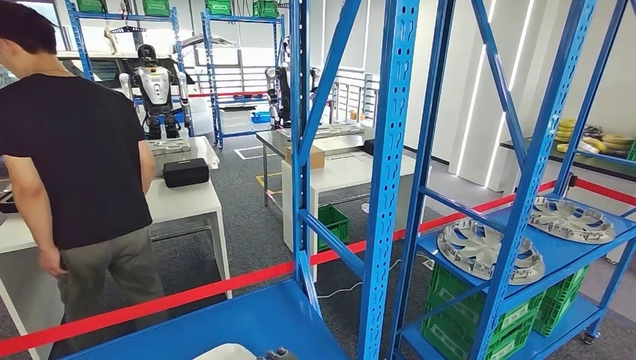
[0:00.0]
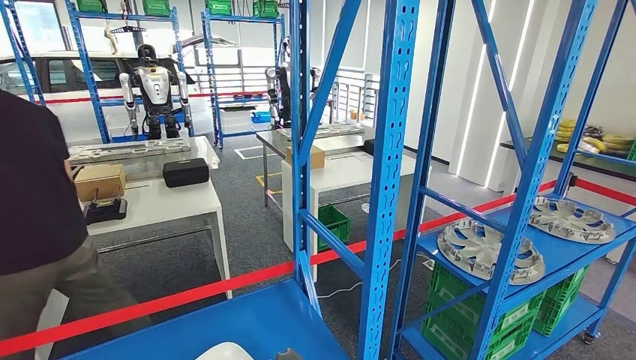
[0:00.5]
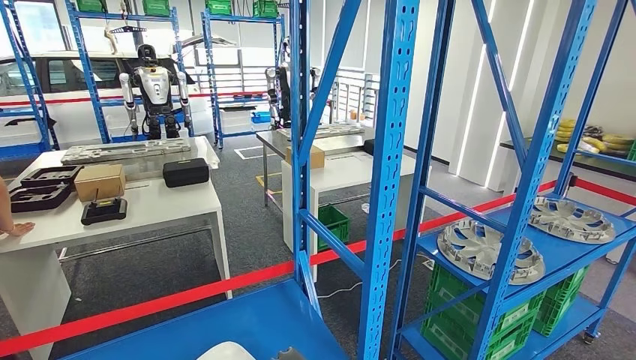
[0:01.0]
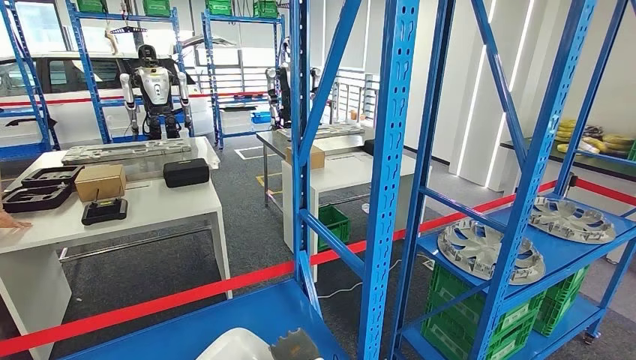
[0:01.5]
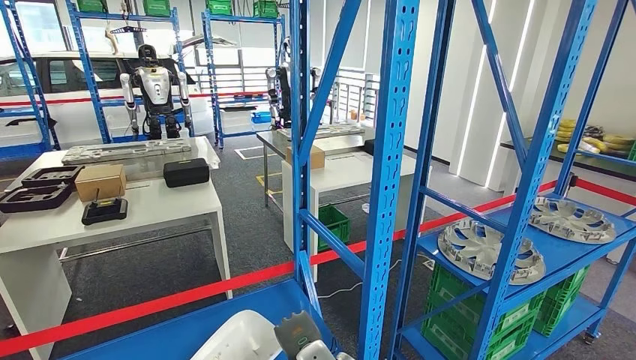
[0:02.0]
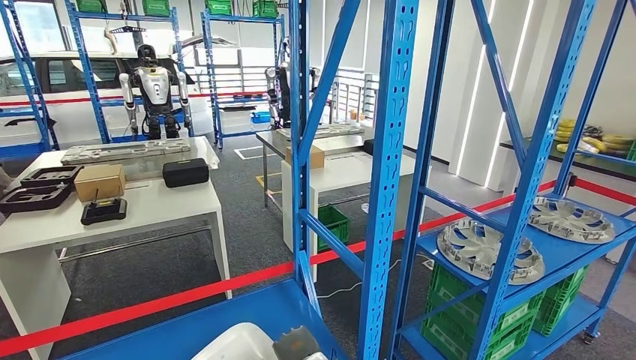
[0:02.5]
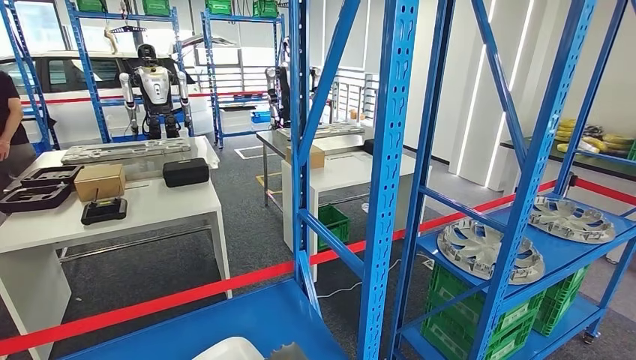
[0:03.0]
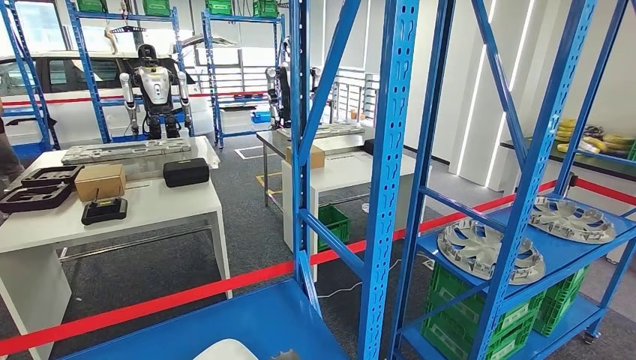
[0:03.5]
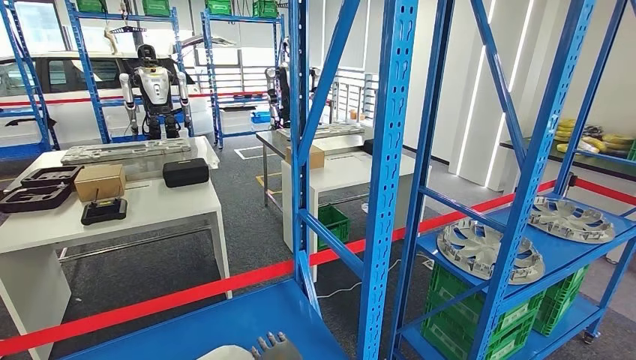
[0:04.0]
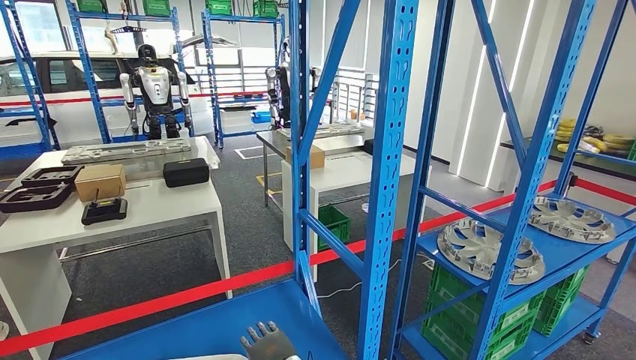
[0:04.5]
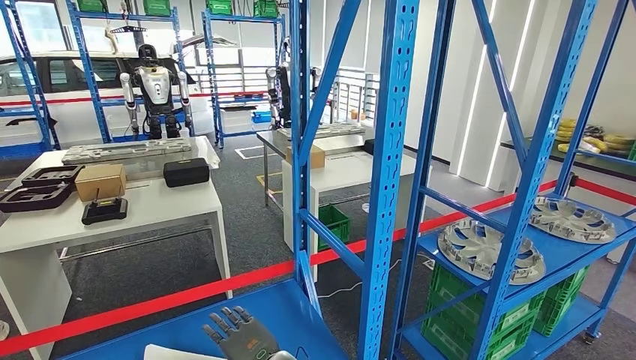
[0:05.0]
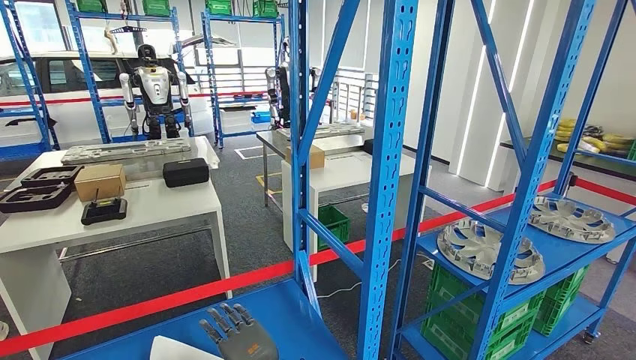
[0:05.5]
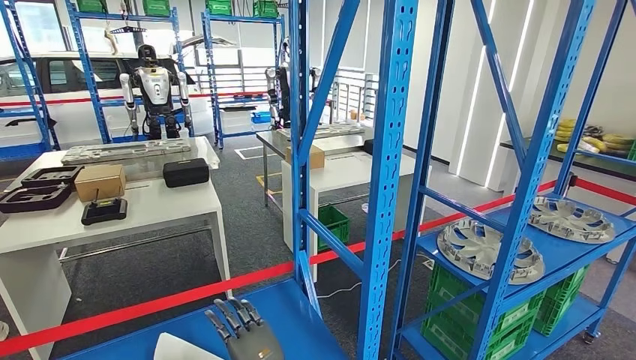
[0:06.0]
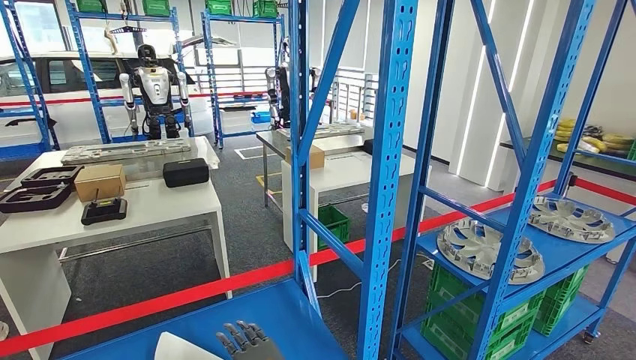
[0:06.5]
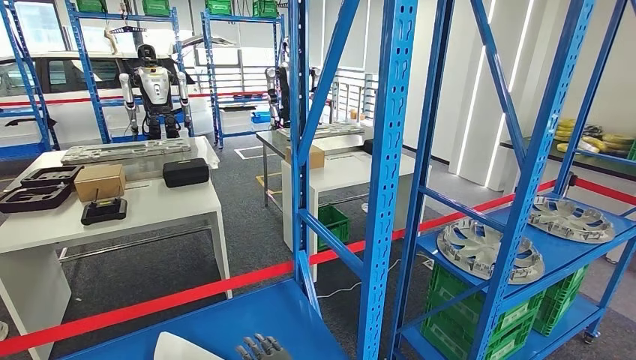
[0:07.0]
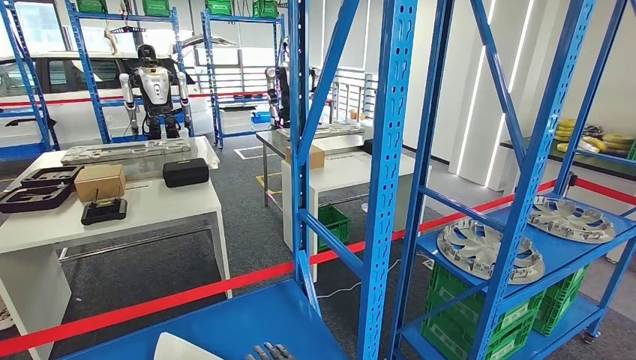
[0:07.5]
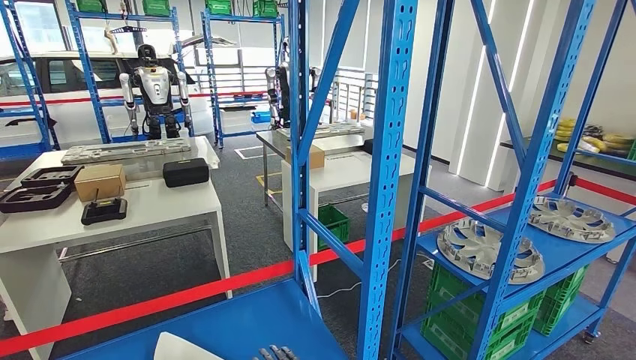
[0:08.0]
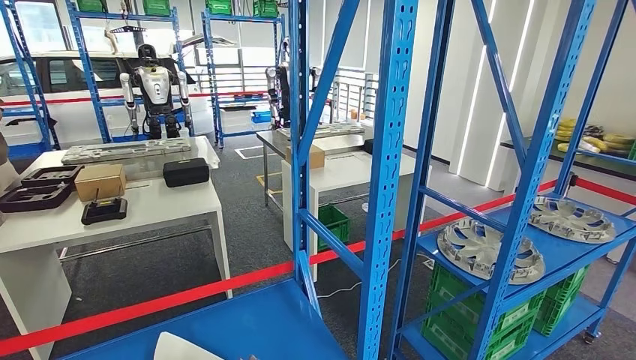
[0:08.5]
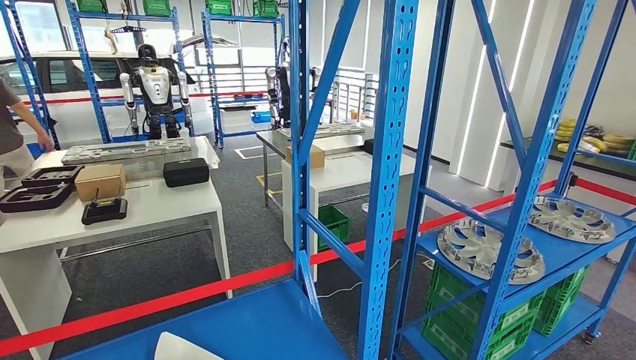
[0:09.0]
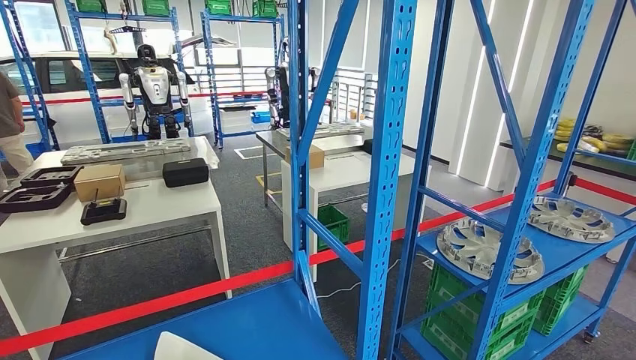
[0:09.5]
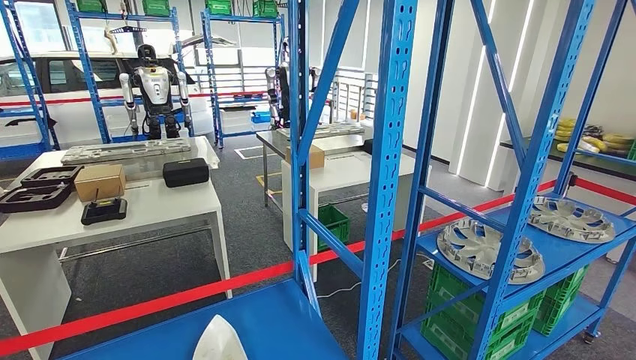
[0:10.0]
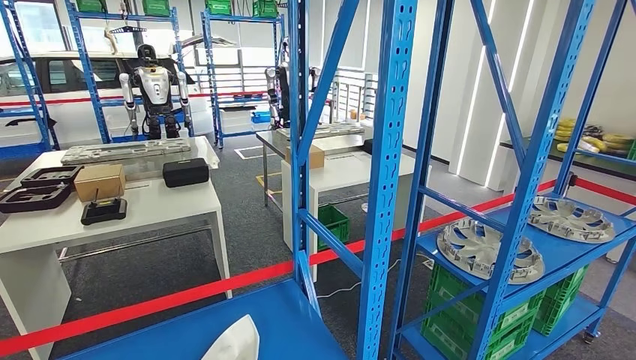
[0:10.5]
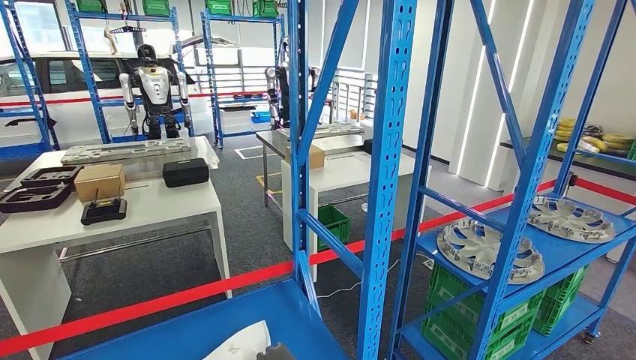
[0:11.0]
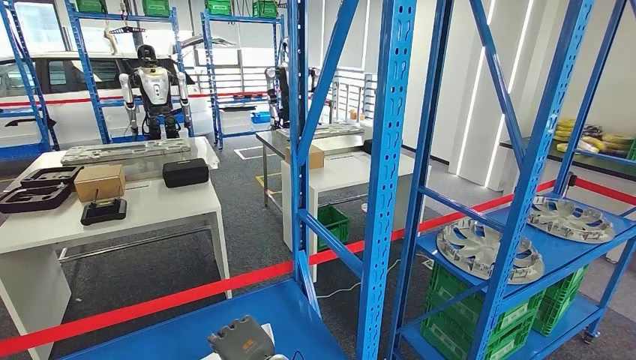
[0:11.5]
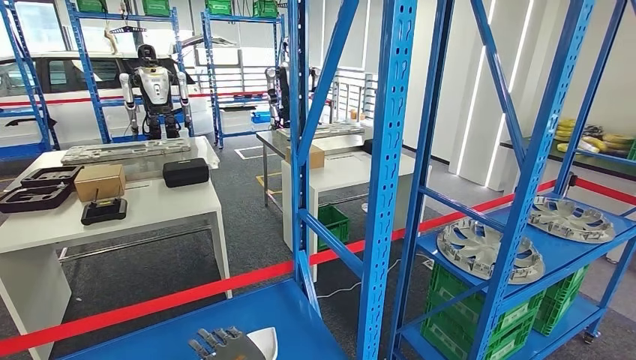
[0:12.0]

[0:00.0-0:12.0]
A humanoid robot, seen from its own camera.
0:00.0 to 0:02.0: The right hand shifts by some 5 cm.
0:02.0 to 0:04.0: The right hand moves some 5 cm.
0:10.0 to 0:12.0: The right hand moves to the left and upward, some 10 cm.

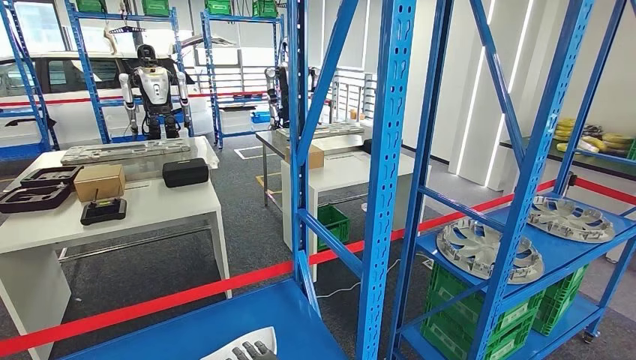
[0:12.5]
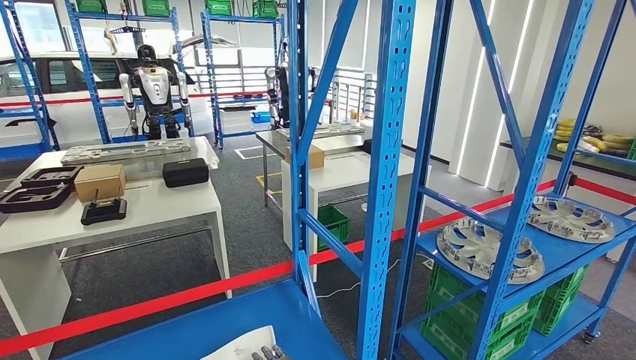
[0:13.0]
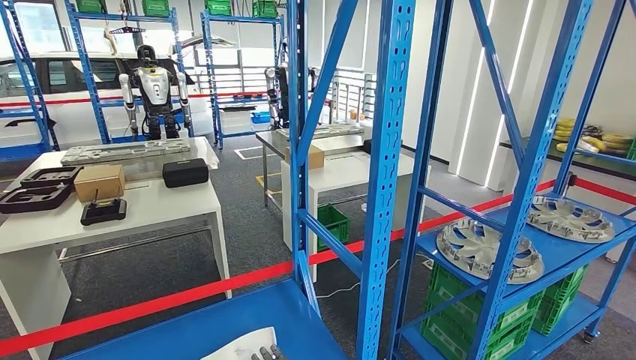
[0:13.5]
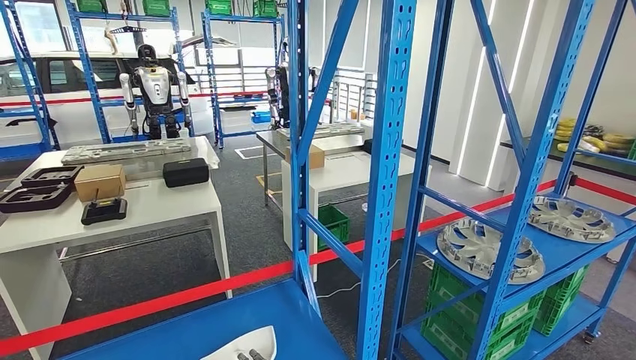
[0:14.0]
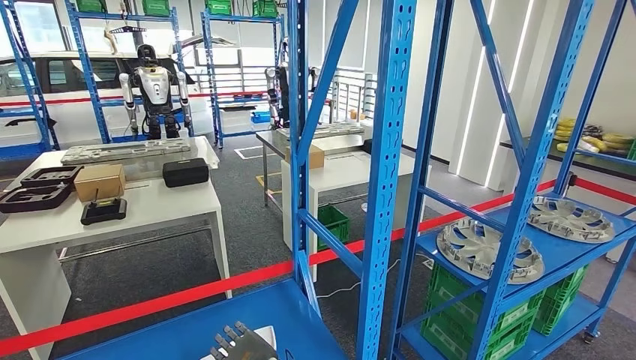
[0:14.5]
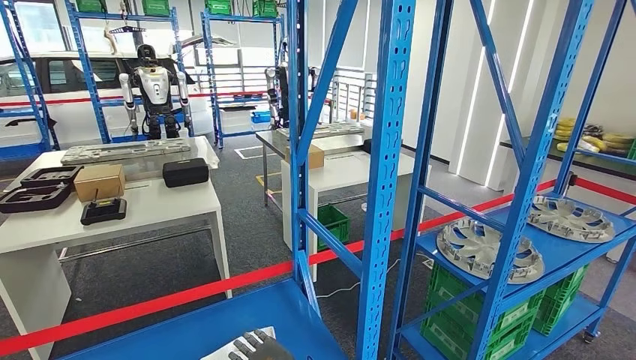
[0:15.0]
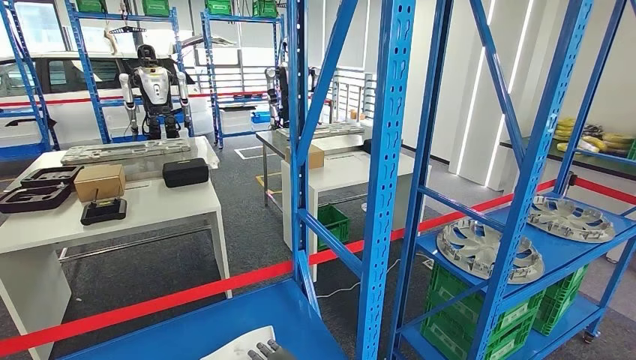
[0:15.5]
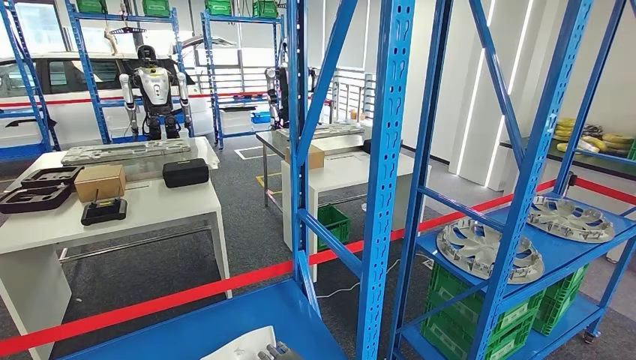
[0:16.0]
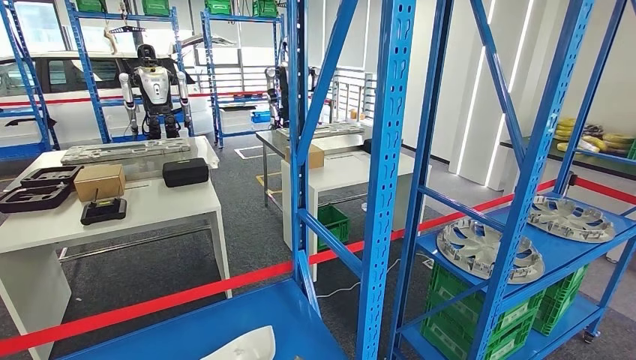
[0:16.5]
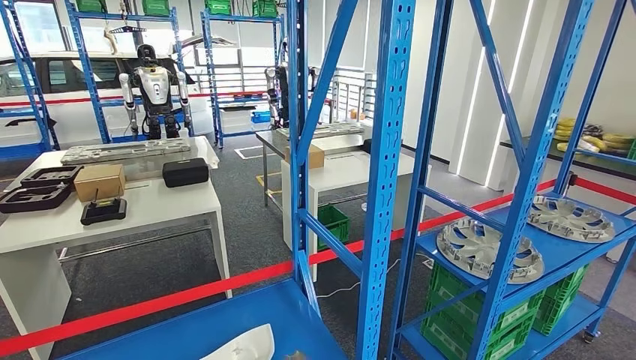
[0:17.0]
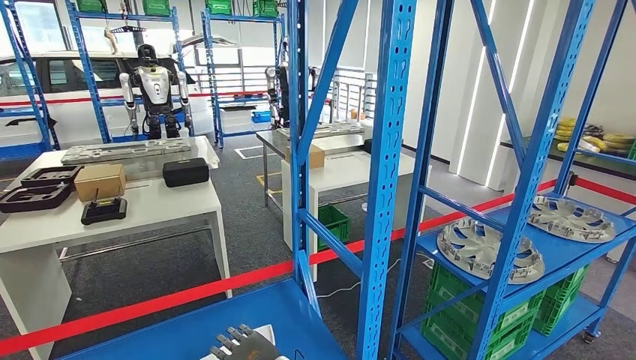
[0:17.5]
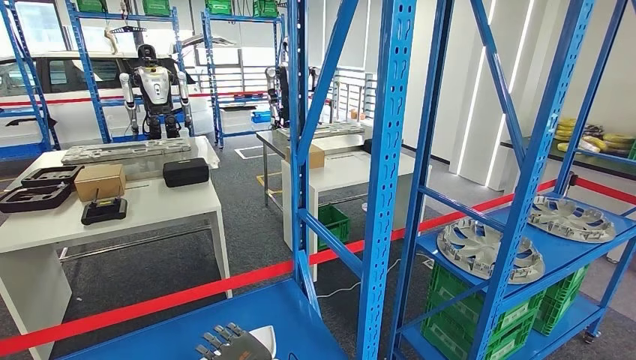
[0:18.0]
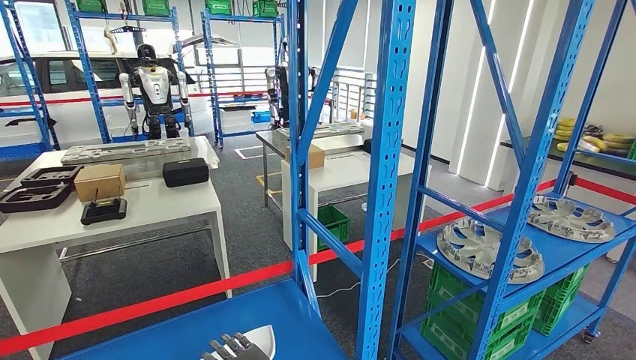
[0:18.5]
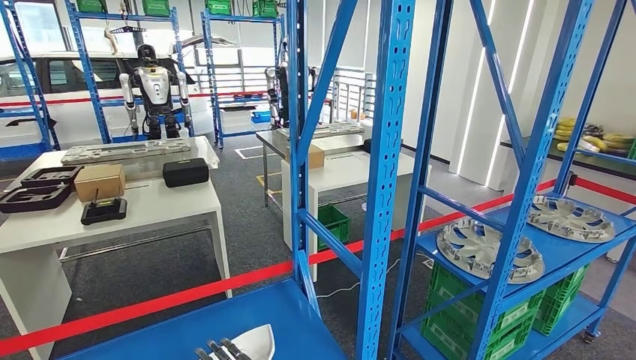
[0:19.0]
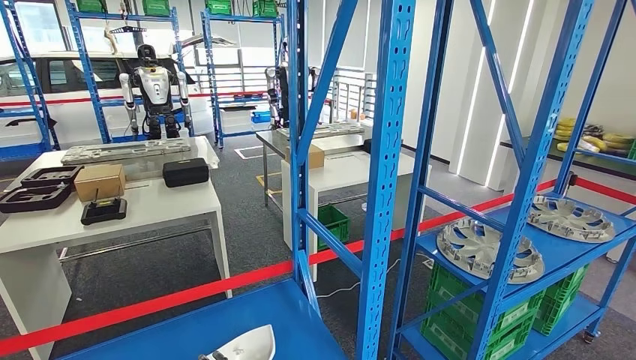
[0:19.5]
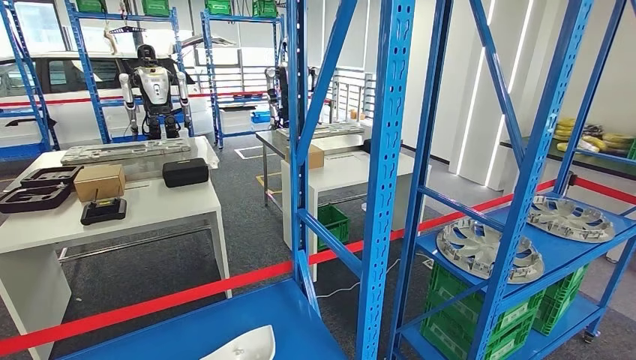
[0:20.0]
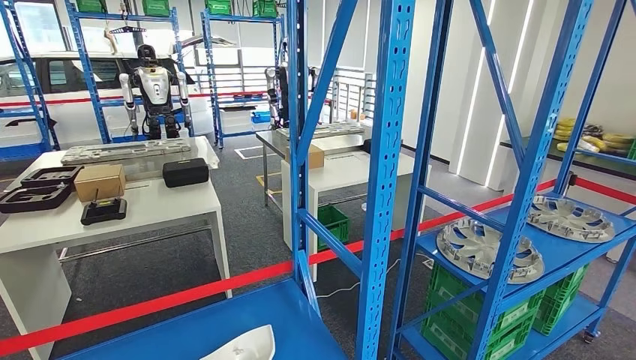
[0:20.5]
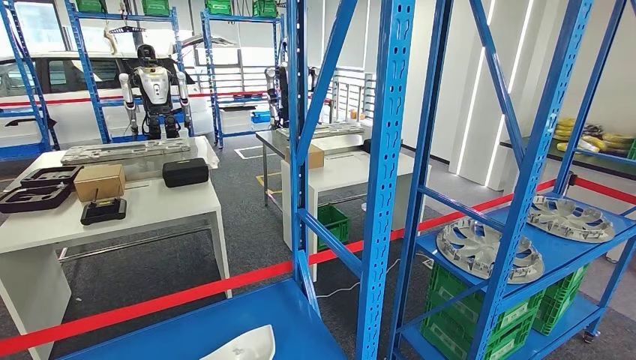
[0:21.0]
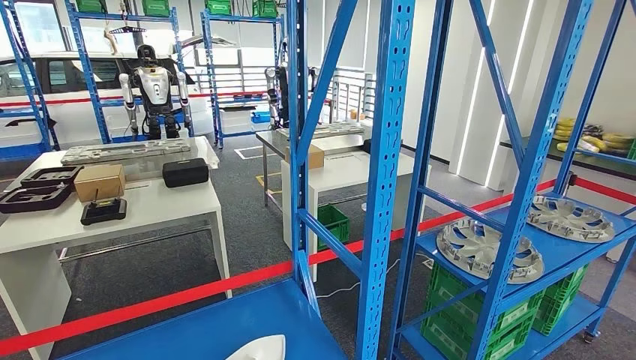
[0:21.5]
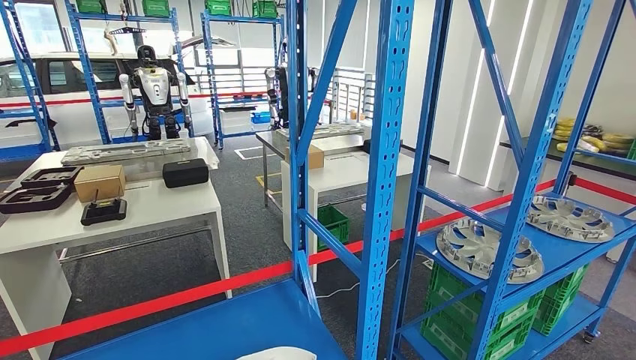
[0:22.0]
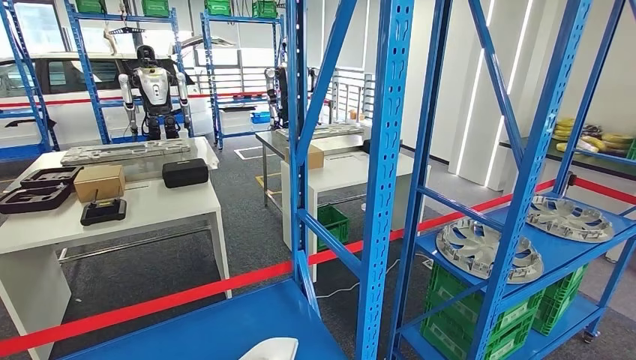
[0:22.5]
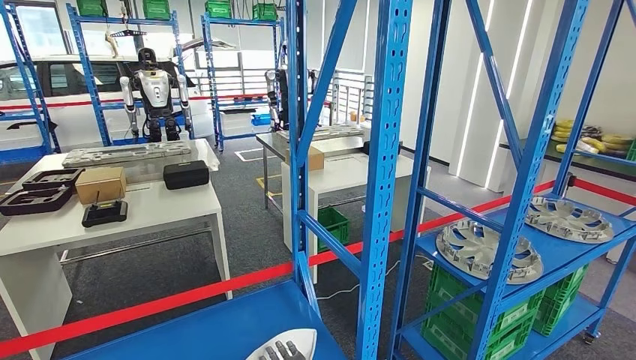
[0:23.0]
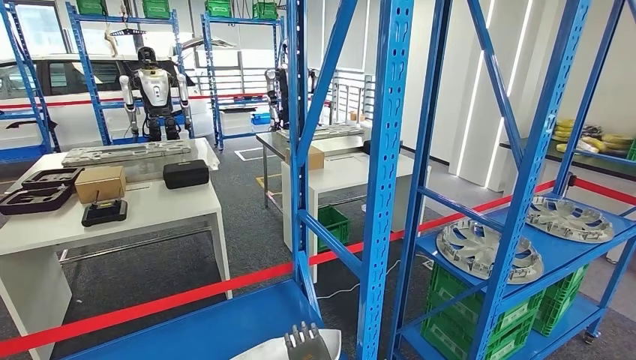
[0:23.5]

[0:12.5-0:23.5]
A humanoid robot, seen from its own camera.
0:14.5 to 0:16.0: The right hand goes some 10 cm to the right and downward.
0:16.0 to 0:18.0: The right hand is displaced to the left by approximately 5 cm.
0:18.0 to 0:20.0: The right hand travels downward and backward by about 10 cm.
0:20.0 to 0:21.5: The right hand shifts by some 5 cm.
0:21.5 to 0:23.5: The right hand shifts by some 5 cm.
